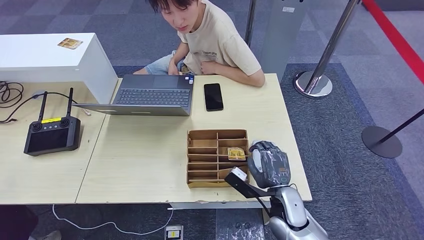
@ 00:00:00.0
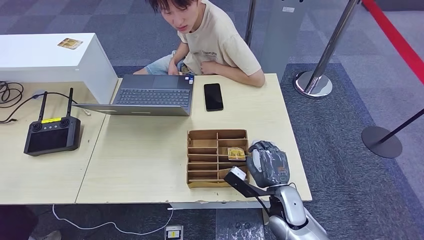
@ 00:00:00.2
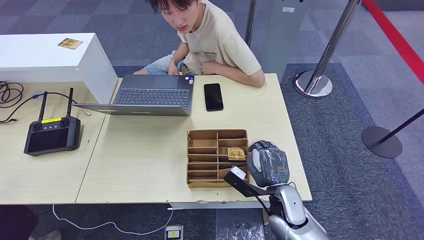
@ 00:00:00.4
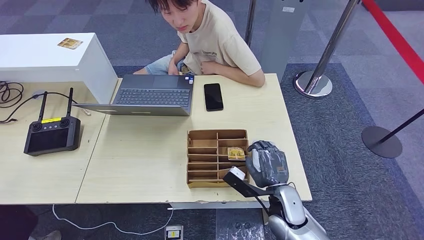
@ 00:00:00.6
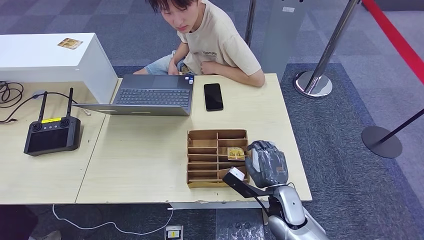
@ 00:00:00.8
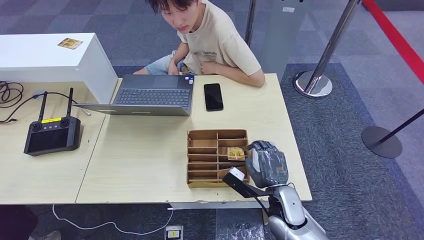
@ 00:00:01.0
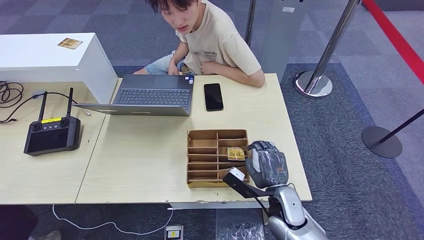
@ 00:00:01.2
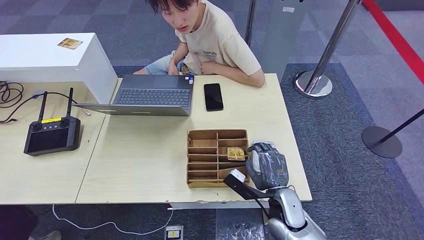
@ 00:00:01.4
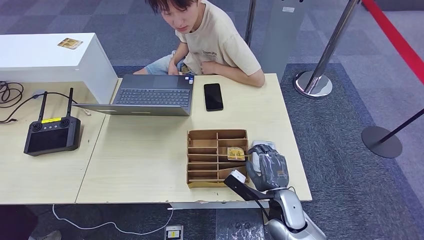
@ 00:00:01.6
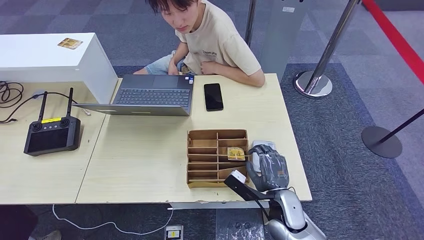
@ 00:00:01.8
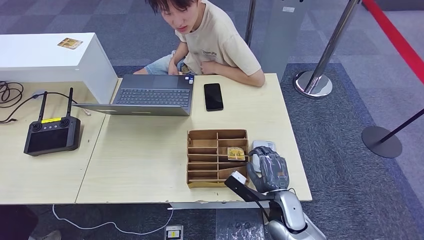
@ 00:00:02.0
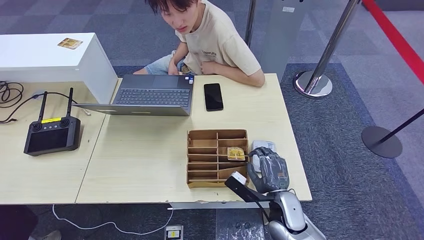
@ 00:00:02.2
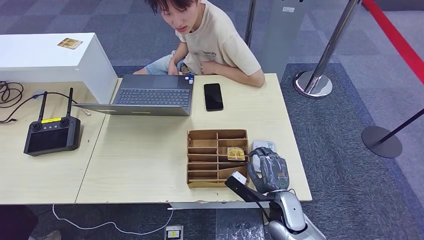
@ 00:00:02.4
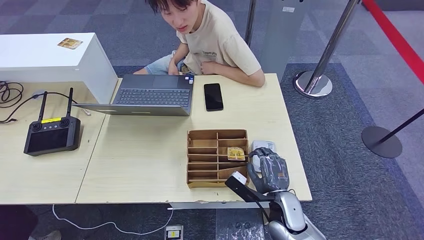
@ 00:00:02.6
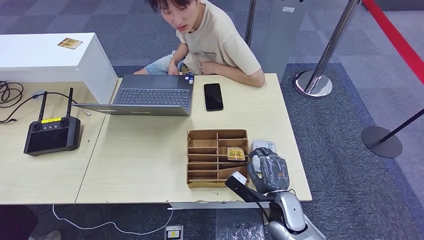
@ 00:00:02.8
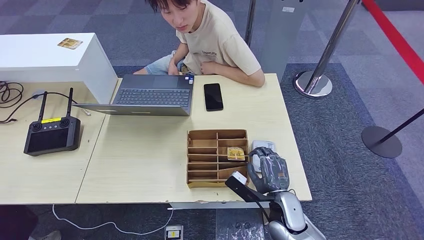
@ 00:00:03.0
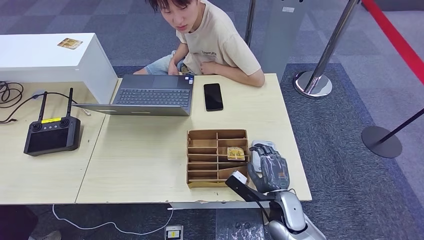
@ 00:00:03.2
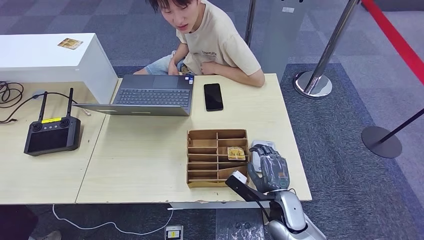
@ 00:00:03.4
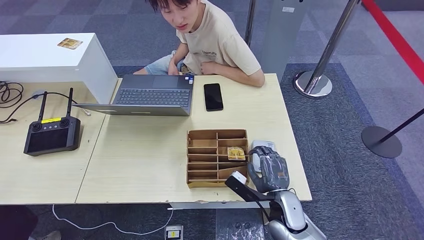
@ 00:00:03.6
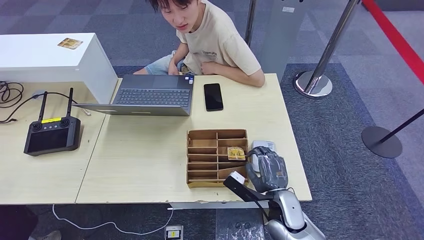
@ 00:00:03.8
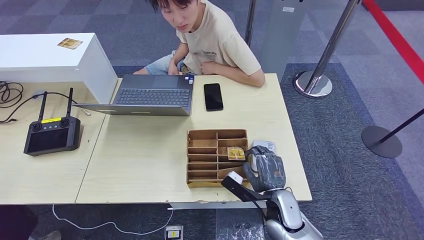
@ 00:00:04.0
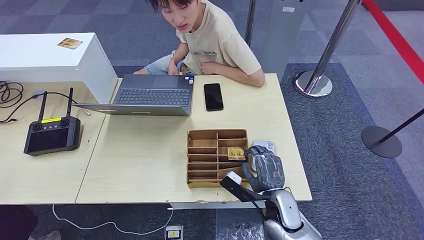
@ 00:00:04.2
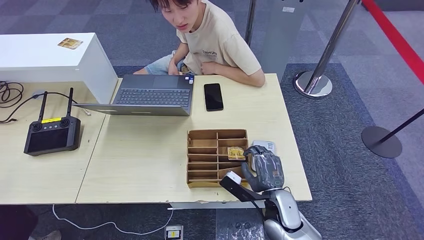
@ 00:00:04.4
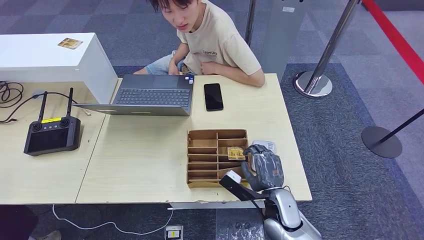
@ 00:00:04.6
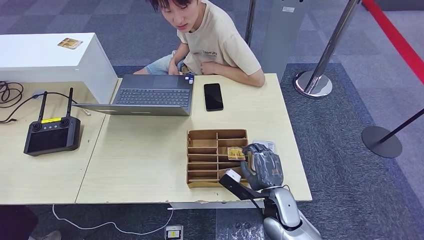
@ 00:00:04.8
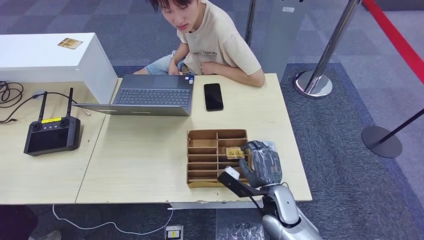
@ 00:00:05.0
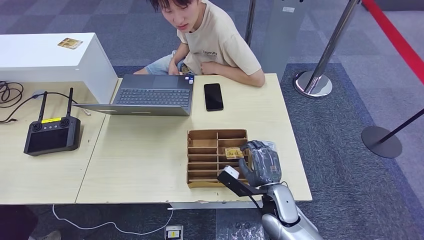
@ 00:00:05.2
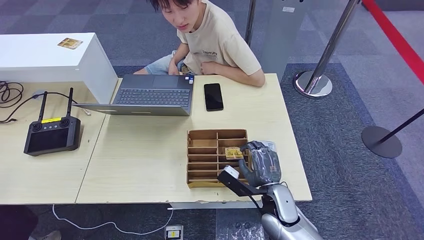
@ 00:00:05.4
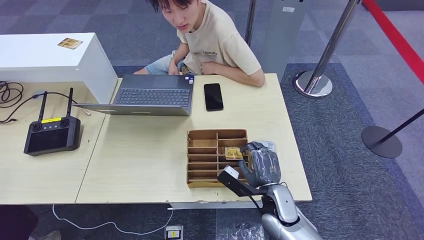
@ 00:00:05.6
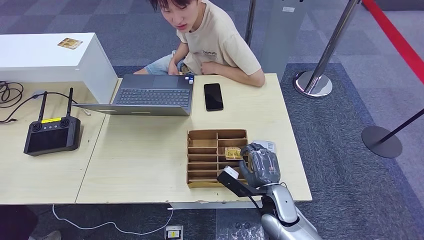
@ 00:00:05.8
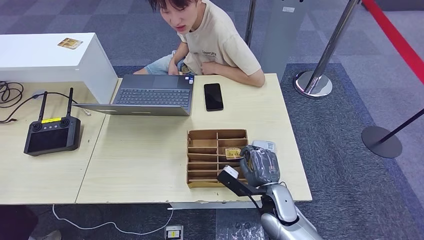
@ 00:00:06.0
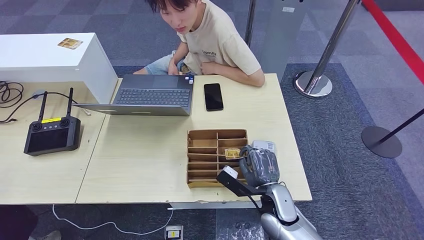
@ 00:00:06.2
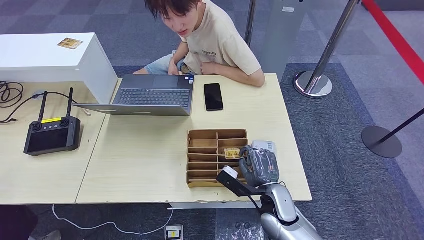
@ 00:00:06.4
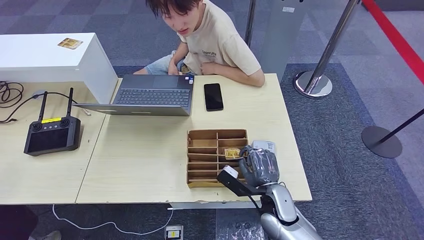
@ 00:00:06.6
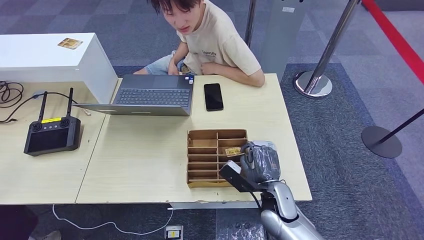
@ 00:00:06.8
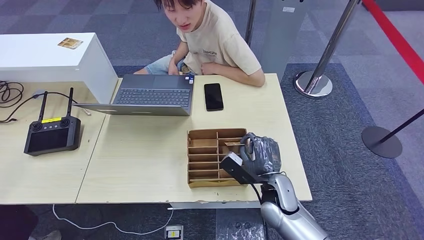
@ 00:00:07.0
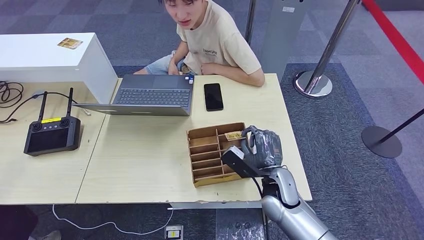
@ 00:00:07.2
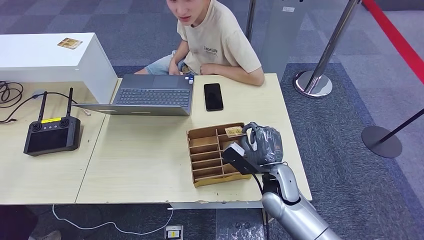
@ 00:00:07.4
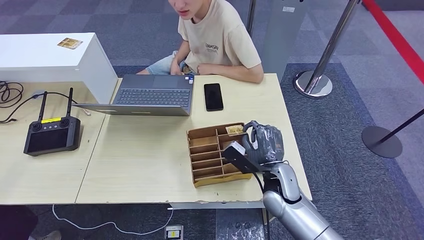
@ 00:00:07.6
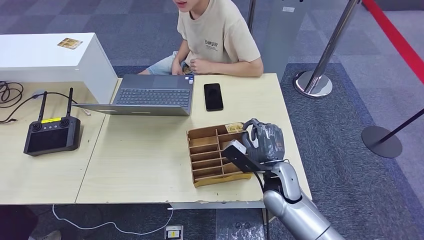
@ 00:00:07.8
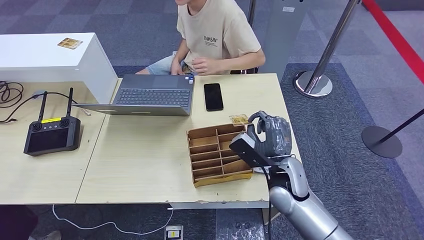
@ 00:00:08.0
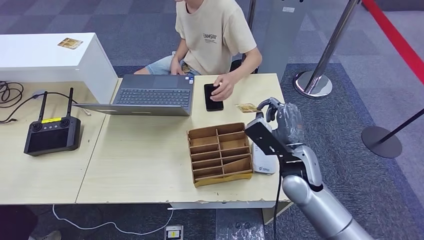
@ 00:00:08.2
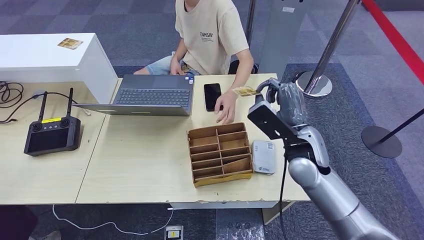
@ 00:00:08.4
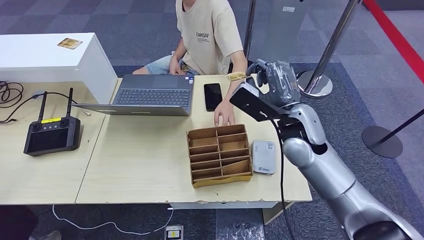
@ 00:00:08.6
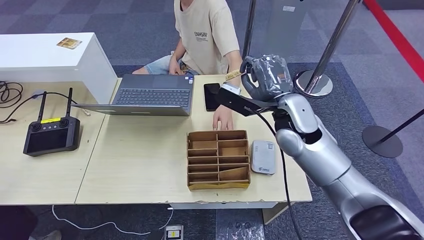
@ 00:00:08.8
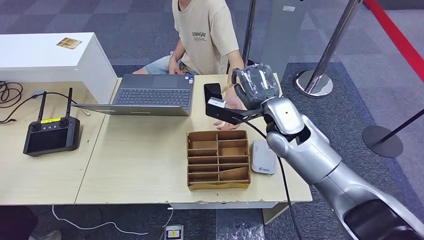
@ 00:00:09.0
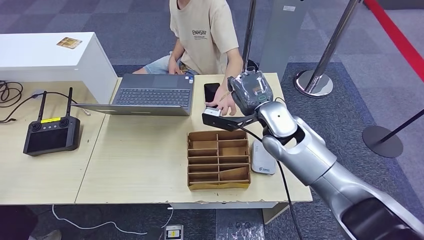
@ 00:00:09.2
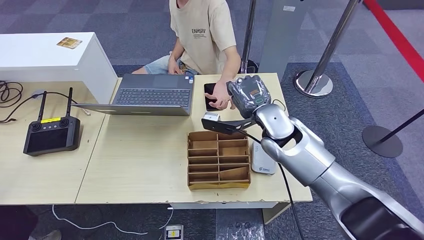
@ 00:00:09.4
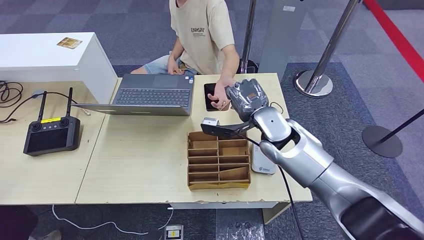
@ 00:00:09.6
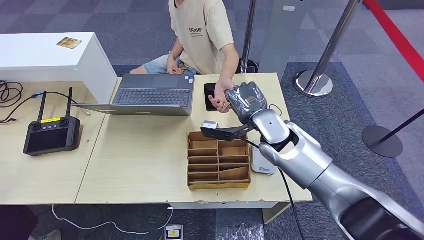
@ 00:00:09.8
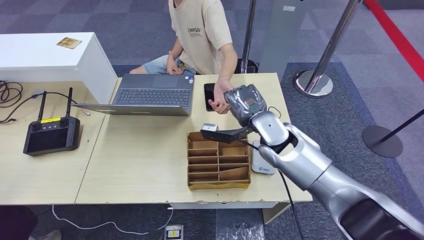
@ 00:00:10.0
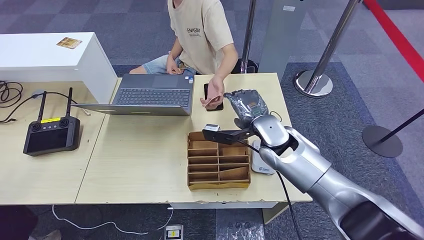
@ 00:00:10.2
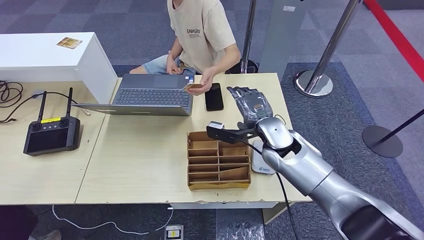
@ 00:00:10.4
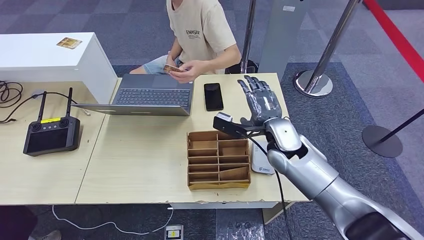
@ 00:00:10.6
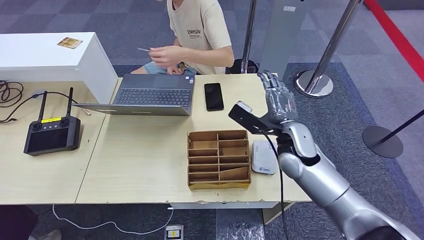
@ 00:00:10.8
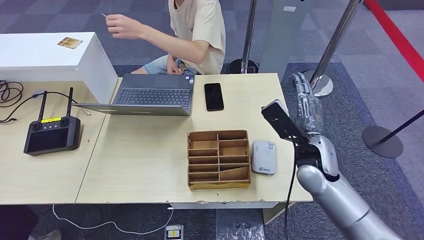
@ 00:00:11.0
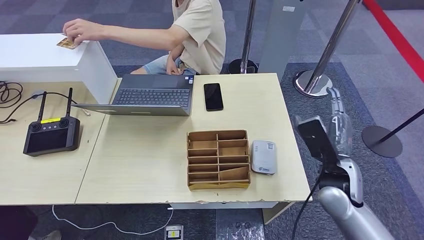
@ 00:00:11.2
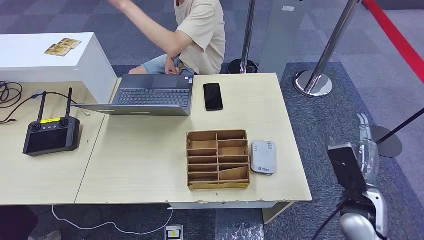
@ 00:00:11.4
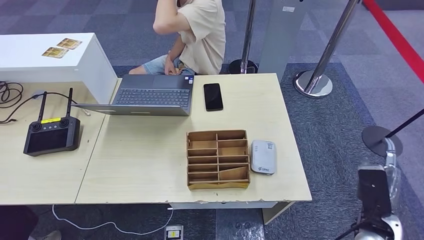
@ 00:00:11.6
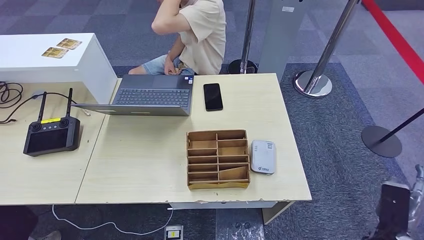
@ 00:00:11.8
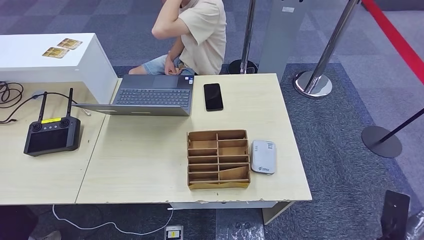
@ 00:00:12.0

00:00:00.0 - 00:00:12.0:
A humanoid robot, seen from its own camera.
Step, 00:00:00.0 - 00:00:07.4: Pick up the room key from the key card box.
Step, 00:00:07.8 - 00:00:12.0: Hand the room key to the person.
00:00:00.0 - 00:00:01.6: Both hands stay put.
00:00:01.6 - 00:00:04.4: The two hands keep their place.
00:00:04.4 - 00:00:06.0: The hands stay close to where they were, moving slightly.
00:00:06.0 - 00:00:07.6: The right hand ends up approximately 5 cm from where it was.
00:00:09.0 - 00:00:10.4: The right hand moves downward, some 5 cm.
00:00:10.4 - 00:00:12.0: The right hand is displaced to the right, backward and downward by some 40 cm.
